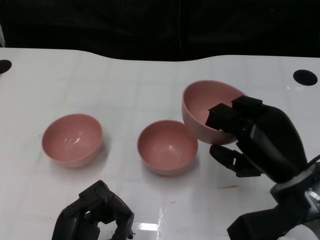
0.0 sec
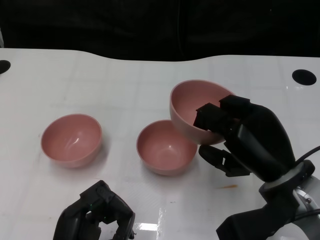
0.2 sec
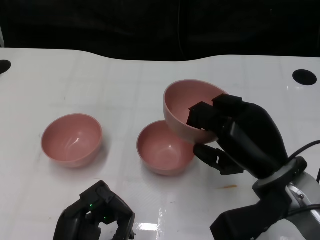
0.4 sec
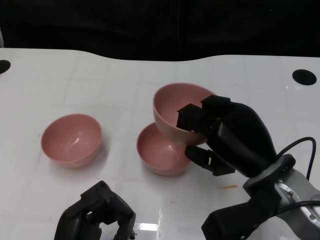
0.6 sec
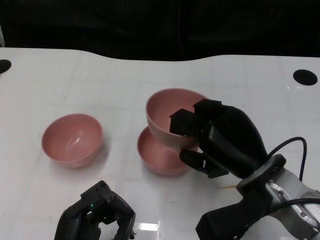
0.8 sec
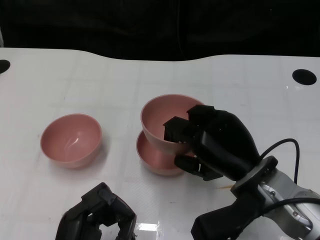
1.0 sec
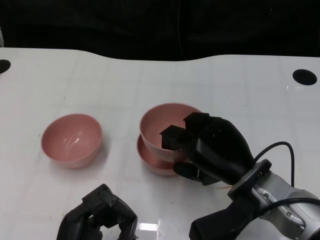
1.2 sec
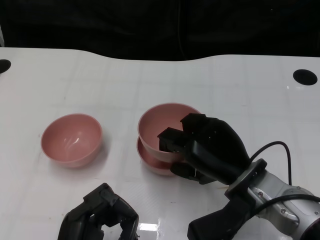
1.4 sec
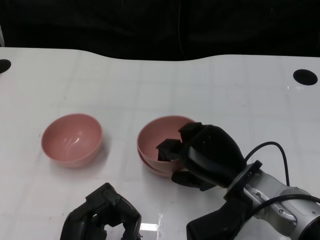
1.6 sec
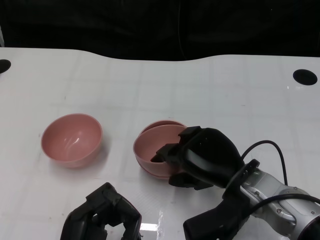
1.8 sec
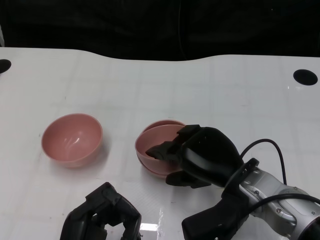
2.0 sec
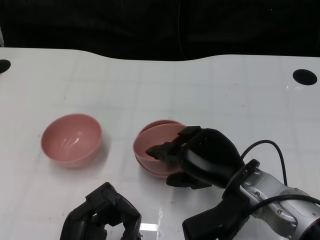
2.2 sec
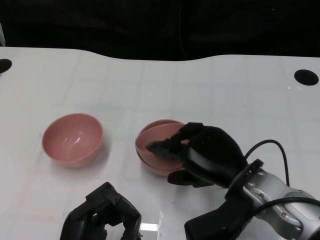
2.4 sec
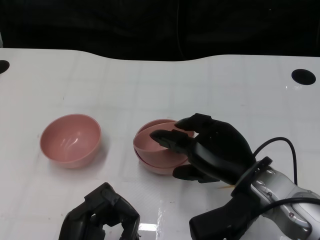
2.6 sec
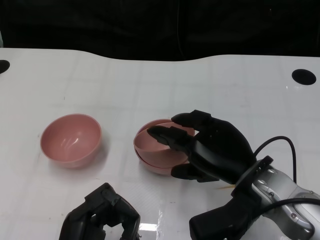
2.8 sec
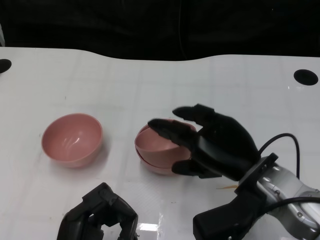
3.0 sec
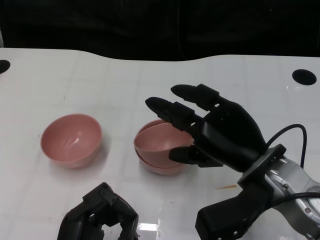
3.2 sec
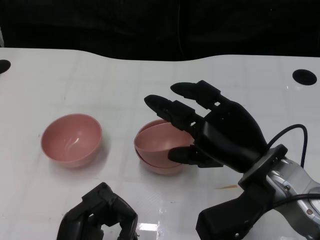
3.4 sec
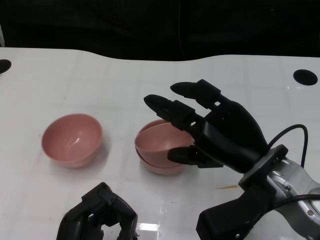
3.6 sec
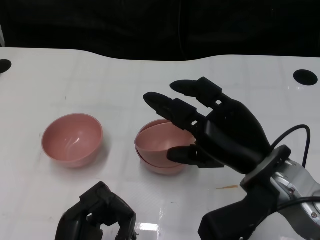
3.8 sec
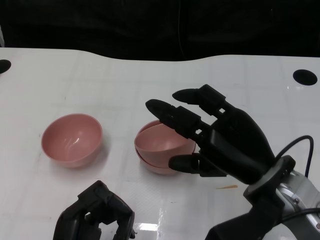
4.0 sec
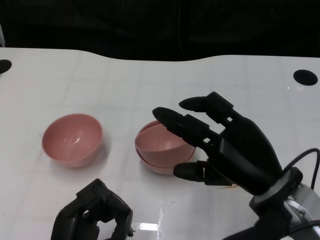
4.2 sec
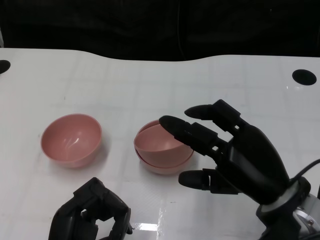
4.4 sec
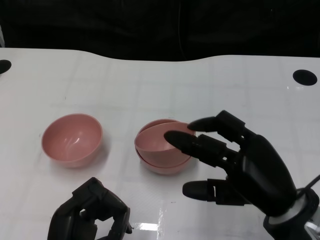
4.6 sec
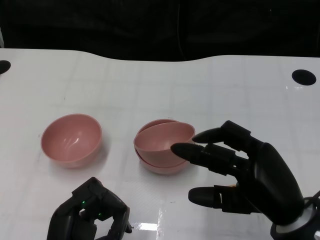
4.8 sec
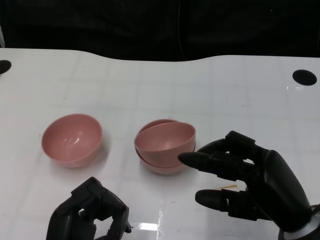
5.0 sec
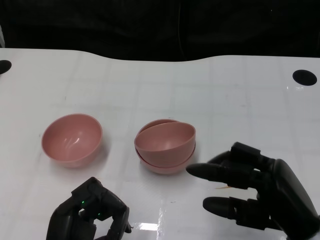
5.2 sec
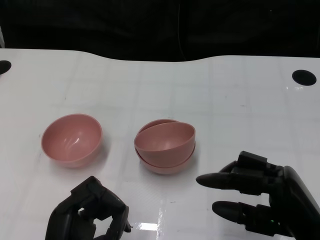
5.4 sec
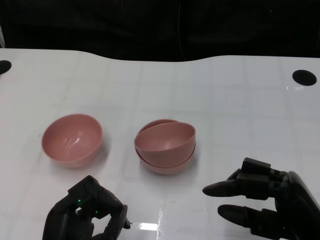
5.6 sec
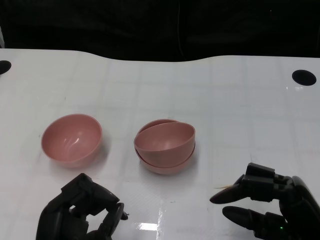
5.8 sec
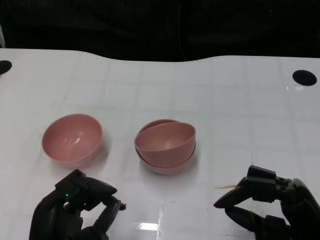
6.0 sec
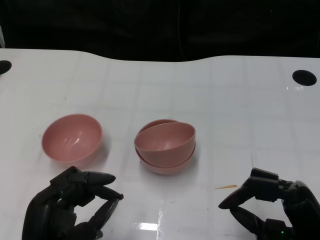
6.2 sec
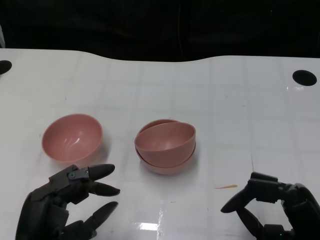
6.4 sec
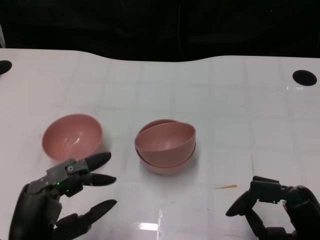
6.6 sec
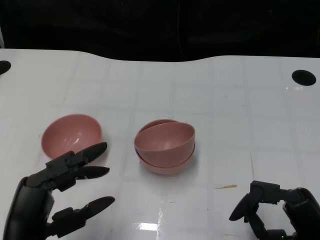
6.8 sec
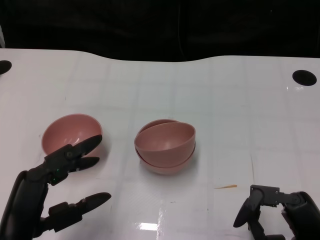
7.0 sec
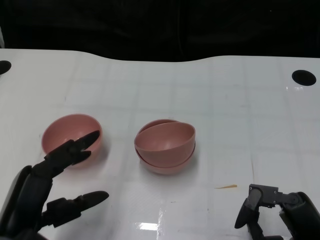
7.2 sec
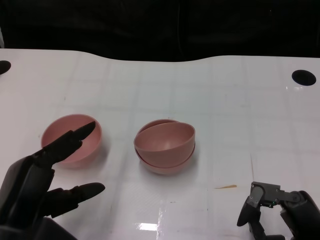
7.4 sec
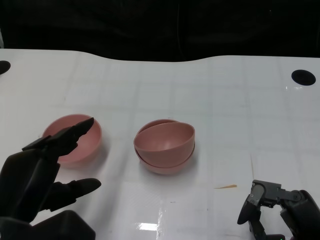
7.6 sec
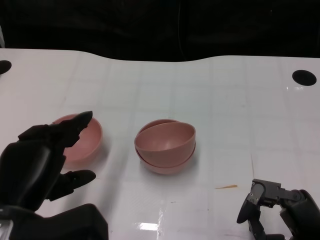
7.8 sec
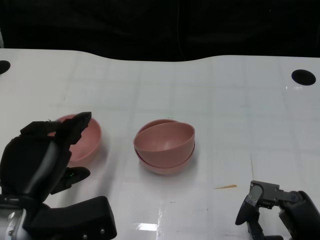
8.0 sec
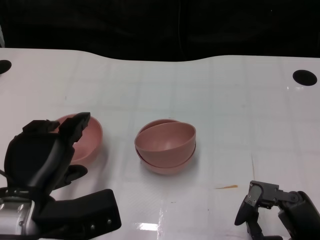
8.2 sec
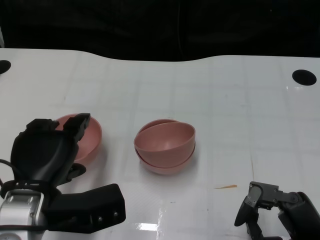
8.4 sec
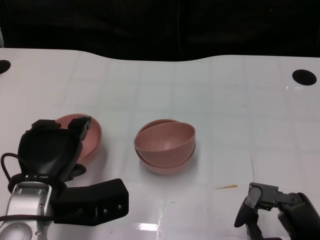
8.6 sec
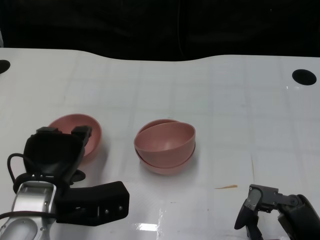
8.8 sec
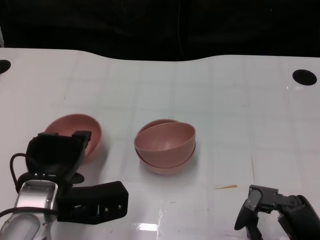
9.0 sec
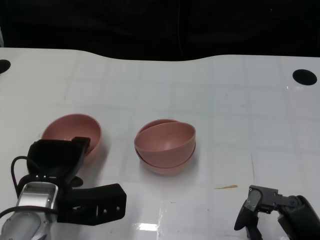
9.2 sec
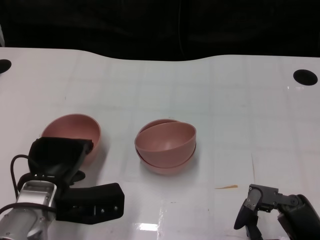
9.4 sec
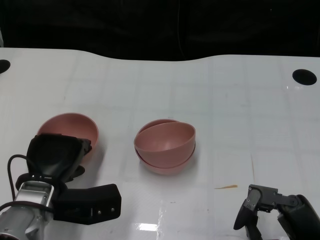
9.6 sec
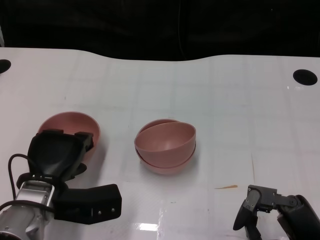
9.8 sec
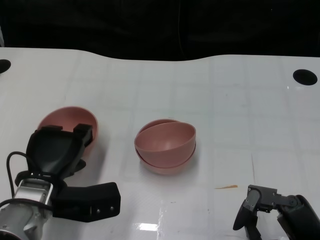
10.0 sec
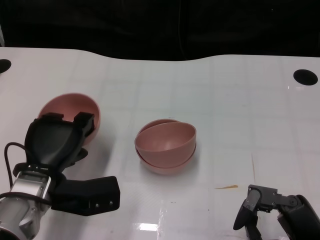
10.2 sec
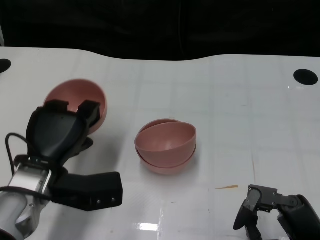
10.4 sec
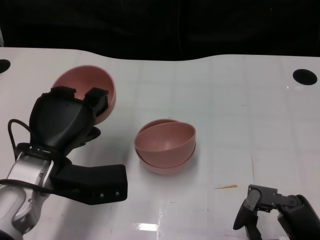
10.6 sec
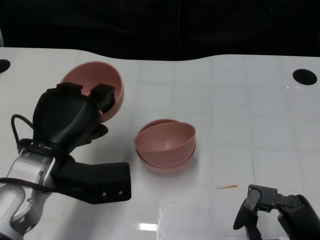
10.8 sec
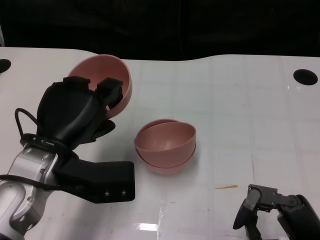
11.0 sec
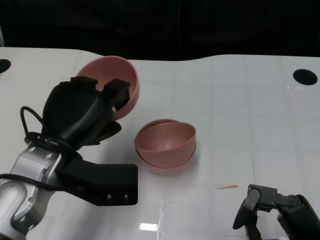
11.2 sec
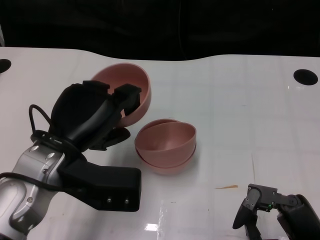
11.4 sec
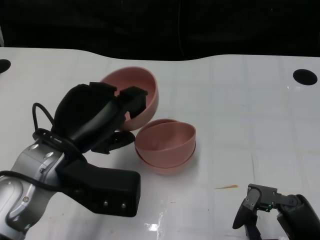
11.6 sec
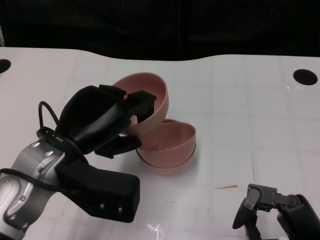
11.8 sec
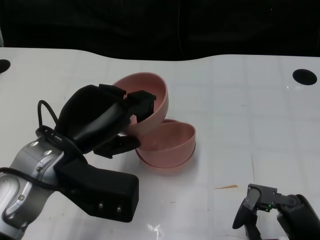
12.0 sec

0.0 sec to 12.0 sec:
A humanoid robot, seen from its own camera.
Task of the whole recording: Pick up the bowl on one side of the table and place it on top of the middle bowl, then pick up the bowl on the other side of the table and place it on top of the middle bowls.
Step, 0.0 sec to 3.6 sec: Place the bowl on the right onto the bowl in the middle with right gripper.
Step, 3.8 sec to 10.0 sec: Grasp the bowl on the left with the left gripper.
0.0 sec to 1.6 sec: The right hand shifts some 5 cm to the left.
1.6 sec to 3.0 sec: The hands move only a little.
3.0 sec to 4.4 sec: The hands make only small movements.
4.4 sec to 6.0 sec: The right hand is displaced backward and to the right by approximately 10 cm.
6.0 sec to 7.6 sec: The left hand shifts approximately 5 cm upward.
7.6 sec to 9.0 sec: The left hand travels forward by roughly 10 cm.
10.4 sec to 12.0 sec: The left hand shifts some 10 cm upward.

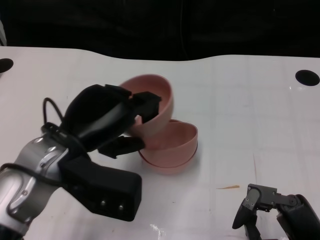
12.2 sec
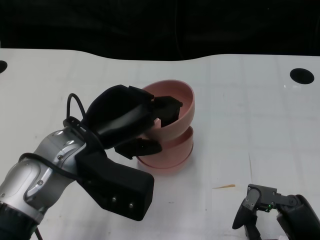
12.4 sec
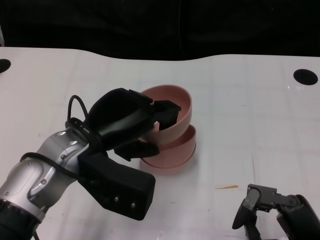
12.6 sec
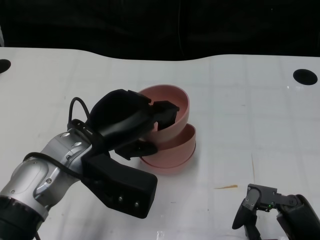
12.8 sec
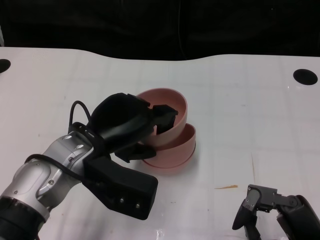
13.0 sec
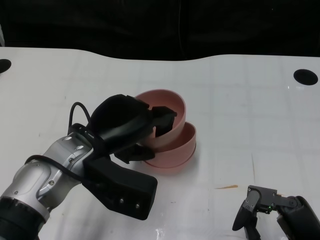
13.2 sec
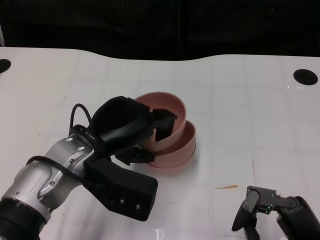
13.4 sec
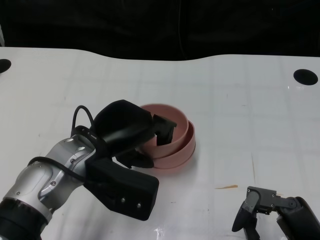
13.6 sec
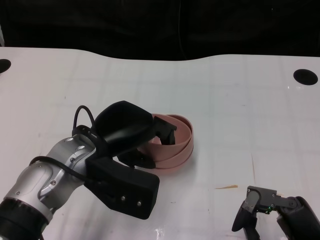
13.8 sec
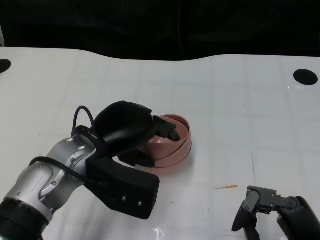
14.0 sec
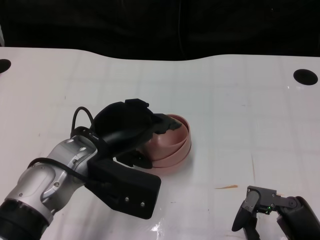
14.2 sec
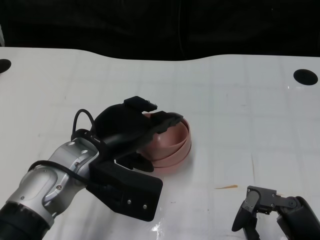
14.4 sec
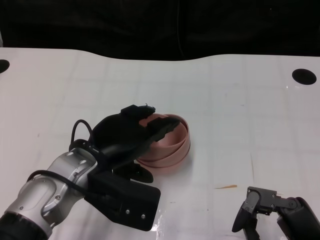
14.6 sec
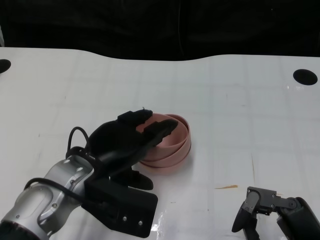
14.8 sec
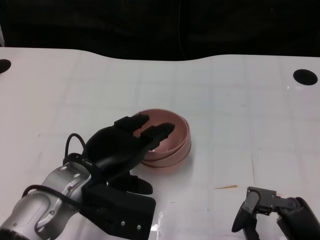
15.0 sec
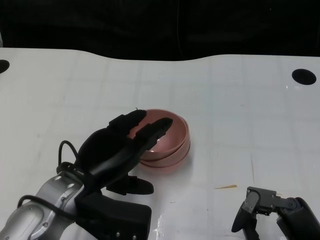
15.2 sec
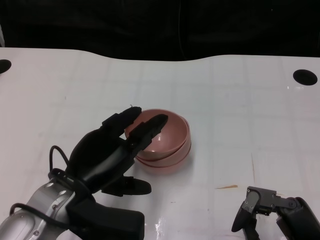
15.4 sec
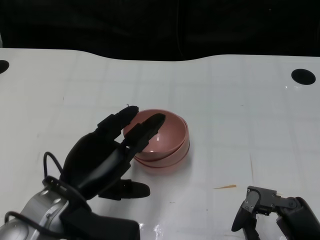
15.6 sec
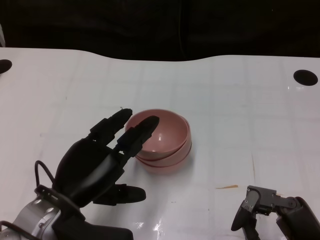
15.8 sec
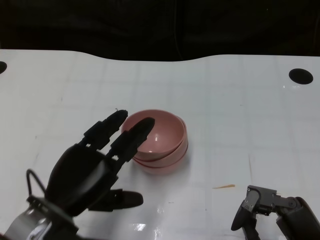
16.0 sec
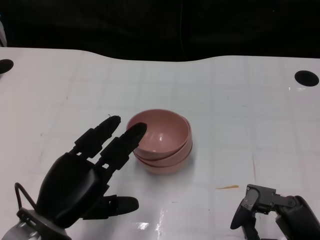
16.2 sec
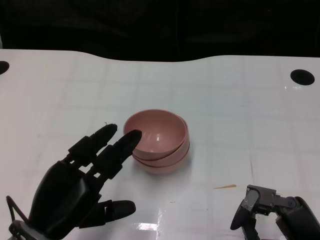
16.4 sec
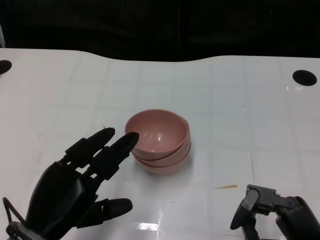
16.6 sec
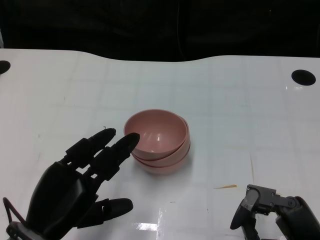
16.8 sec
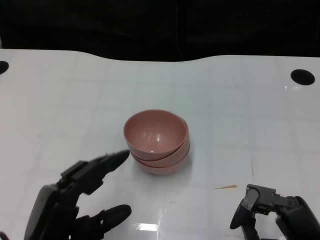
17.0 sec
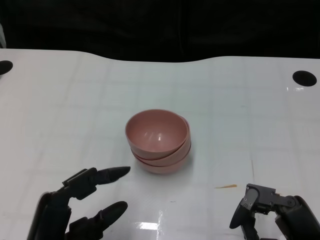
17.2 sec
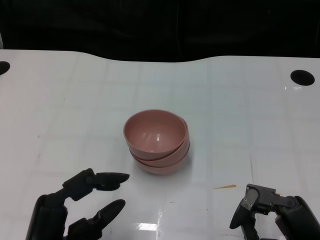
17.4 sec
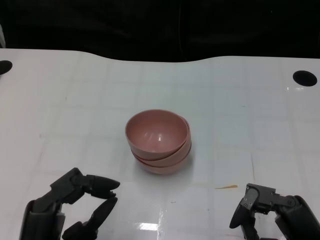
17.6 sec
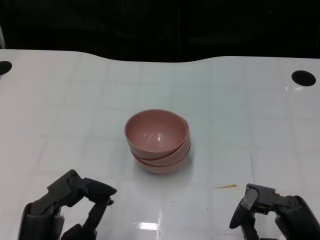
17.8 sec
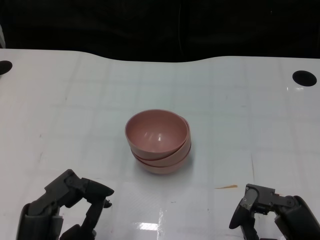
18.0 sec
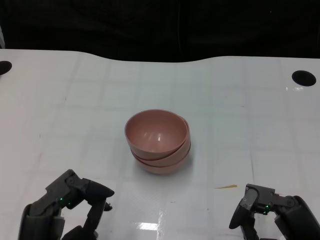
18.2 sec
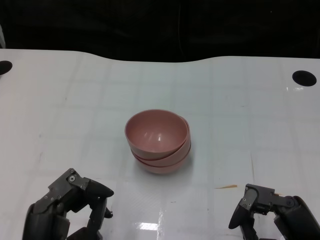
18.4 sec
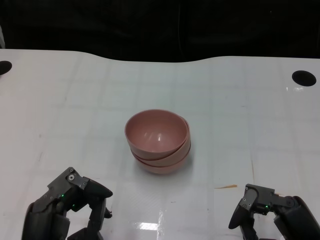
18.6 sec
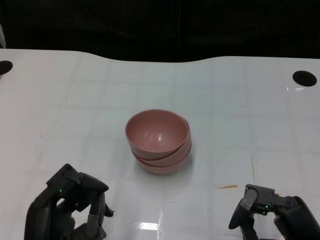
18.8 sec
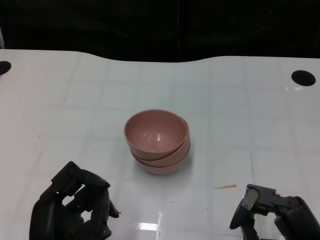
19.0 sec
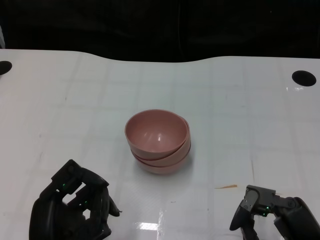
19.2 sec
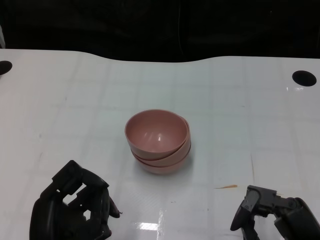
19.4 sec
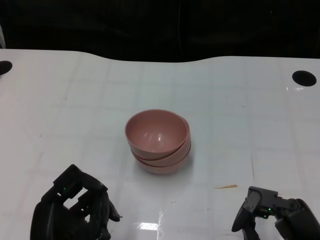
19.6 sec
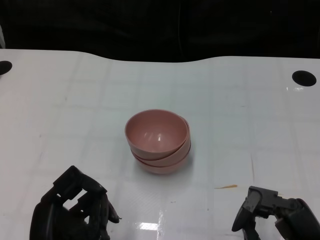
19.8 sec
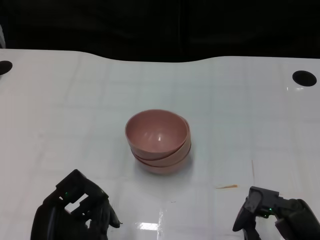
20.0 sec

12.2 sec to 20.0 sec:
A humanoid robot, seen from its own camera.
Task of the whole recording: Pick up the bowl on one side of the table and place it on top of the middle bowl, then pick up the bowl on the other side of the table and place it on top of the middle bowls.
Step, 12.2 sec to 15.4 sec: Place the bowl on the left onto the bowl in the middle with left gripper.
13.8 sec to 15.4 sec: The left hand shifts by some 5 cm.
15.4 sec to 16.8 sec: The left hand goes roughly 5 cm backward.
16.8 sec to 18.4 sec: The left hand goes approximately 5 cm backward.

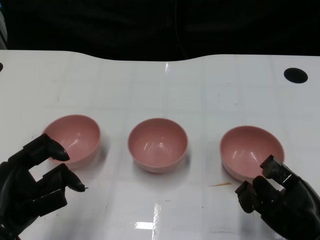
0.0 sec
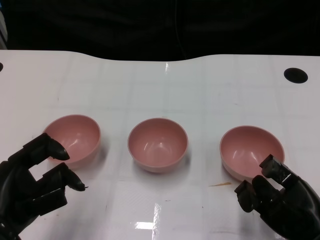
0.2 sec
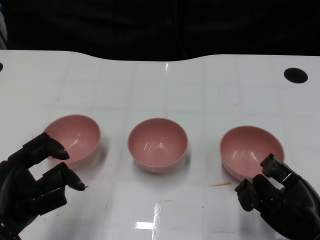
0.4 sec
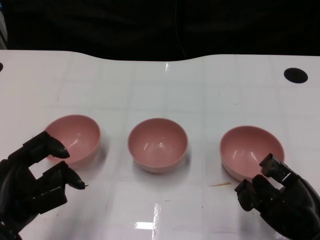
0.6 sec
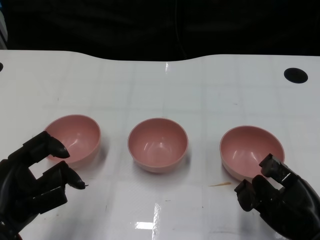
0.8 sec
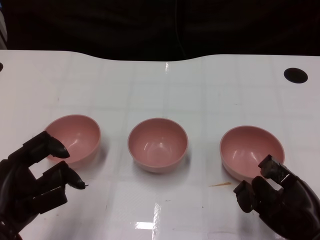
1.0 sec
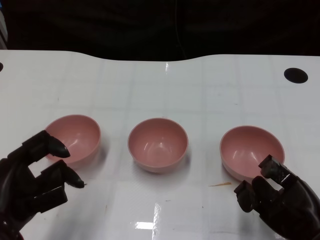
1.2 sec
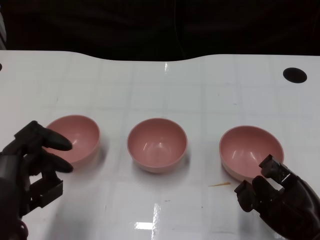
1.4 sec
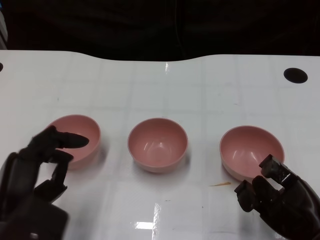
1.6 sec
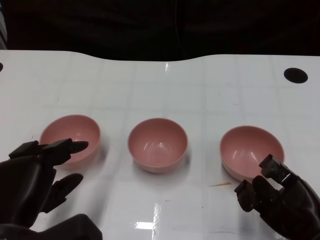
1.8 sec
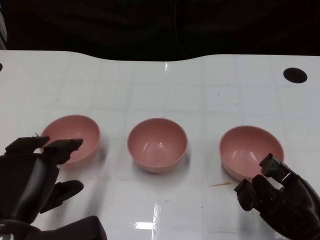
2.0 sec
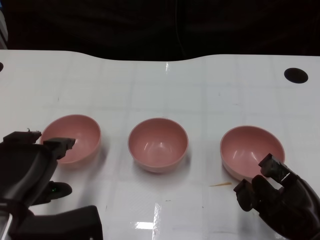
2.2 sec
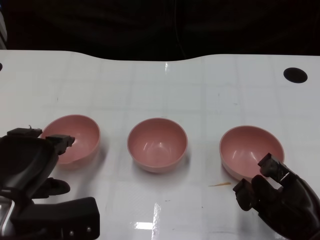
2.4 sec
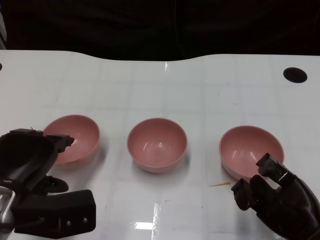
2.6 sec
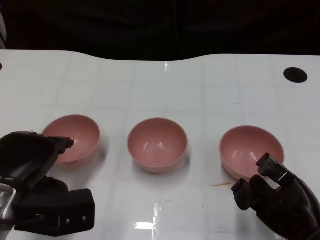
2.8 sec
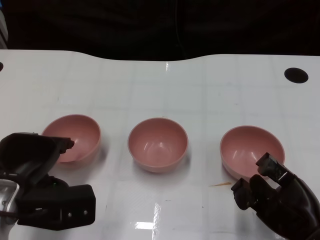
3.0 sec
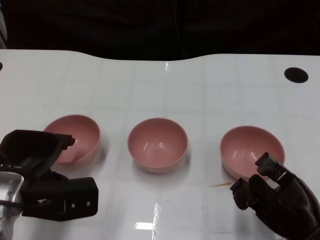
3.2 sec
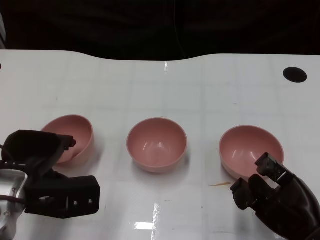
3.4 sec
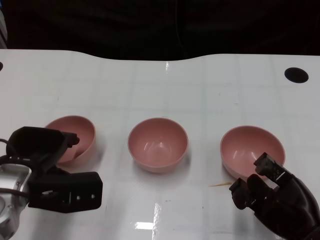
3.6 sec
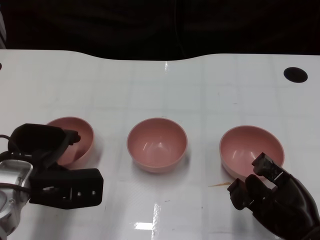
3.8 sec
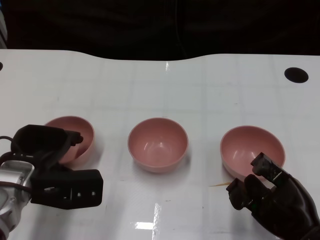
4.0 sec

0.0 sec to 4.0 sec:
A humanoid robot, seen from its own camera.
Task of the whole recording: Pick up the bowl on one side of the table and place it on top of the middle bowl, then pick up the bowl on the other side of the table and place it on top of the middle bowls.
1.4 sec to 2.6 sec: The left hand moves forward, about 5 cm.
2.6 sec to 4.0 sec: The left hand goes roughly 5 cm forward.
